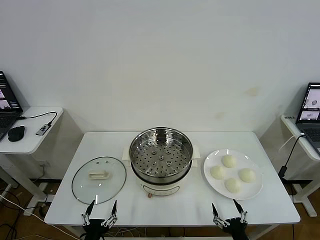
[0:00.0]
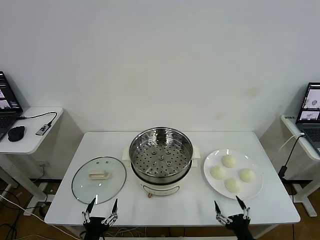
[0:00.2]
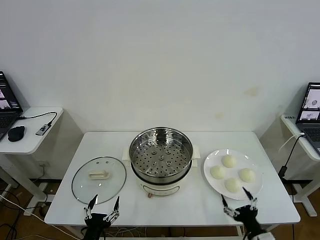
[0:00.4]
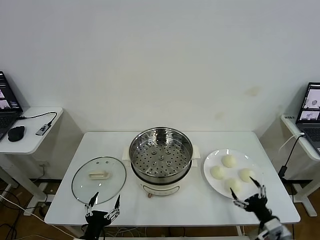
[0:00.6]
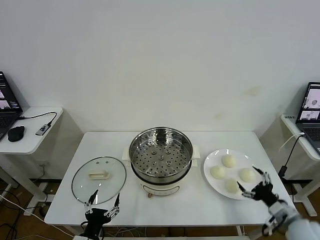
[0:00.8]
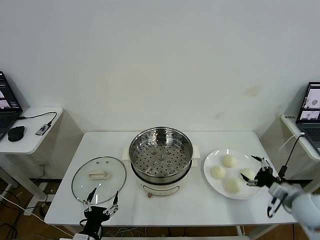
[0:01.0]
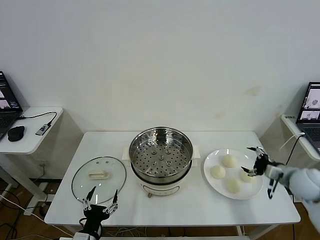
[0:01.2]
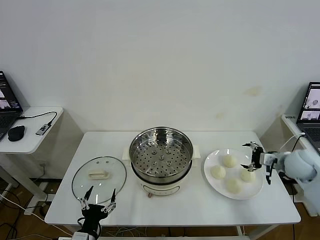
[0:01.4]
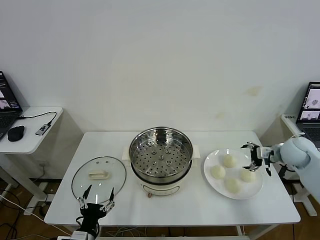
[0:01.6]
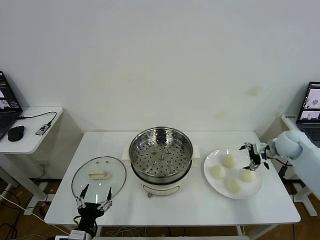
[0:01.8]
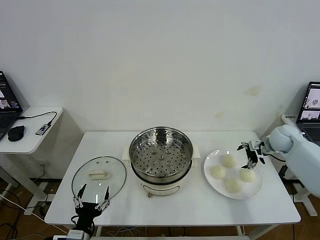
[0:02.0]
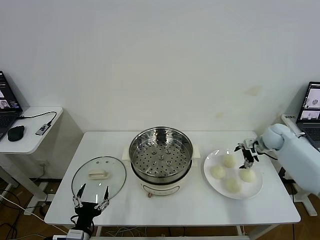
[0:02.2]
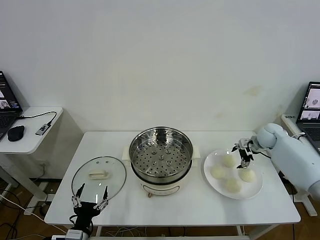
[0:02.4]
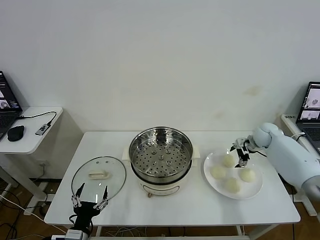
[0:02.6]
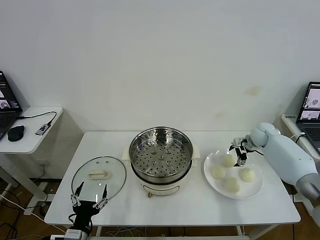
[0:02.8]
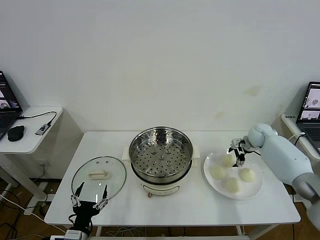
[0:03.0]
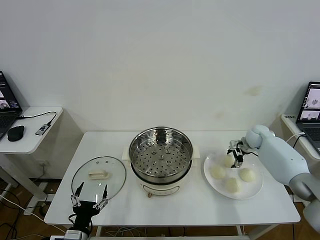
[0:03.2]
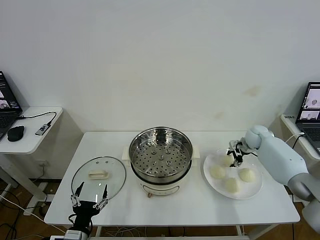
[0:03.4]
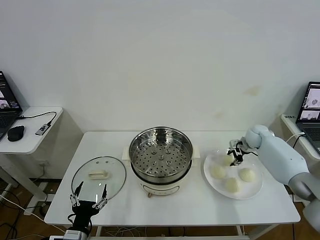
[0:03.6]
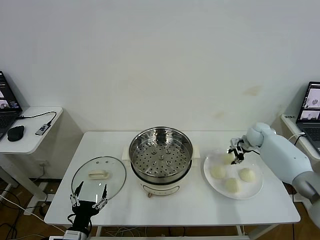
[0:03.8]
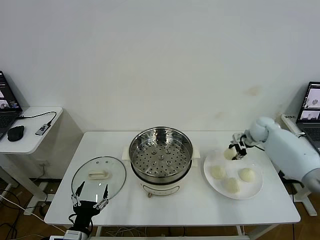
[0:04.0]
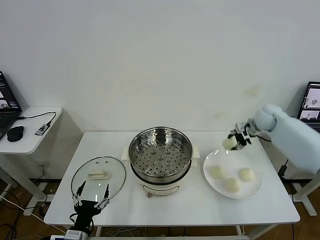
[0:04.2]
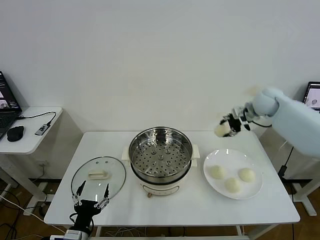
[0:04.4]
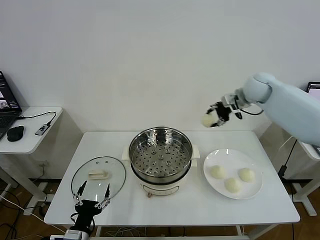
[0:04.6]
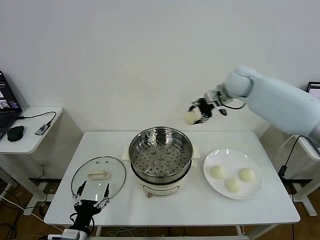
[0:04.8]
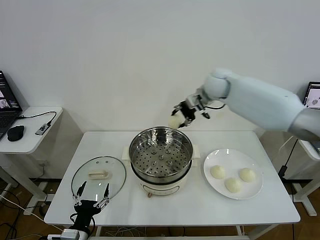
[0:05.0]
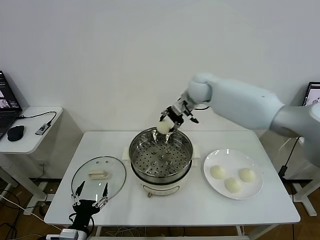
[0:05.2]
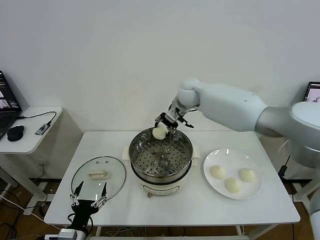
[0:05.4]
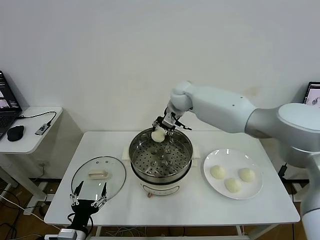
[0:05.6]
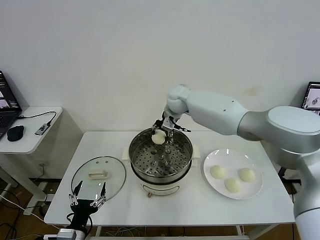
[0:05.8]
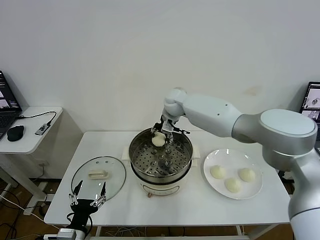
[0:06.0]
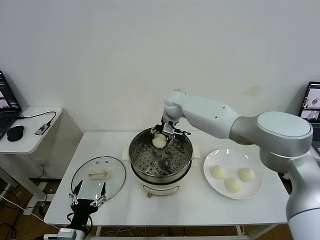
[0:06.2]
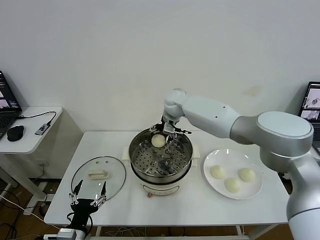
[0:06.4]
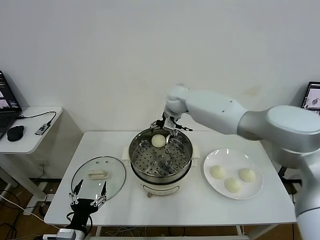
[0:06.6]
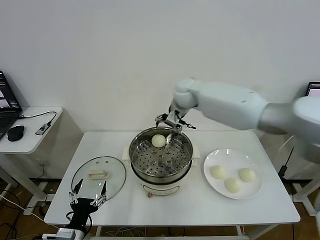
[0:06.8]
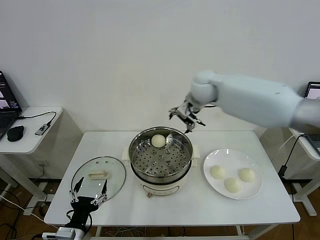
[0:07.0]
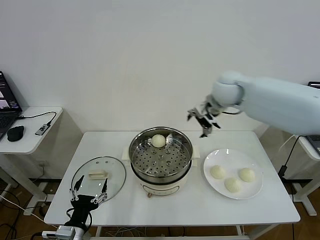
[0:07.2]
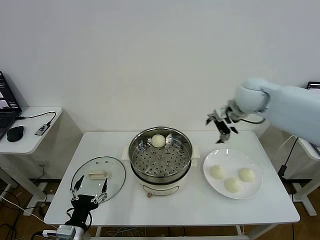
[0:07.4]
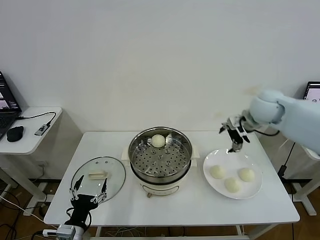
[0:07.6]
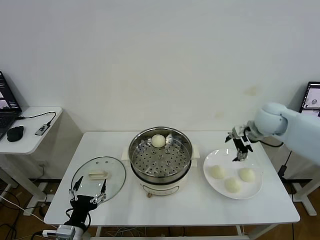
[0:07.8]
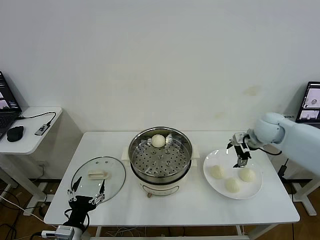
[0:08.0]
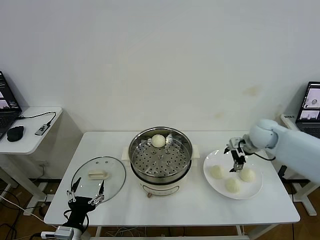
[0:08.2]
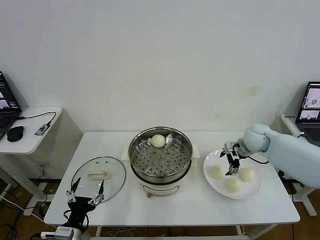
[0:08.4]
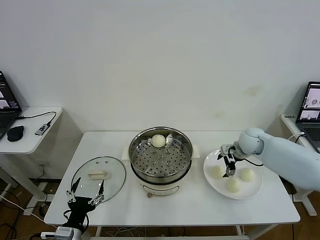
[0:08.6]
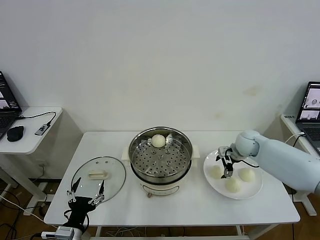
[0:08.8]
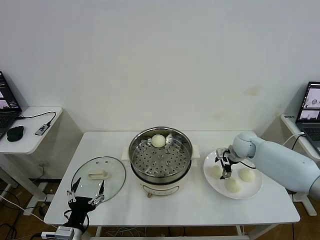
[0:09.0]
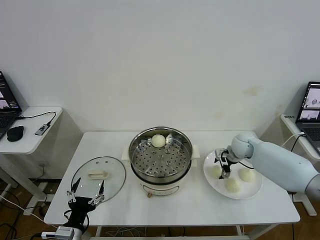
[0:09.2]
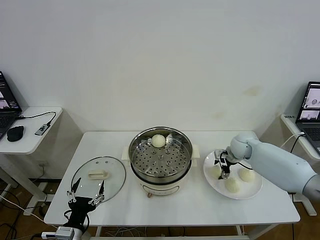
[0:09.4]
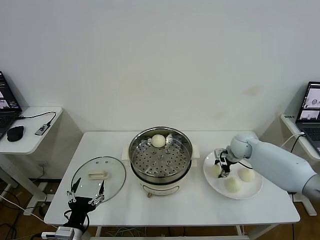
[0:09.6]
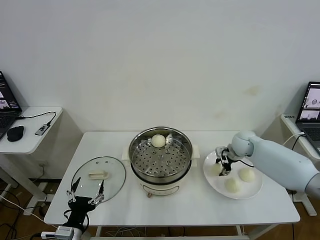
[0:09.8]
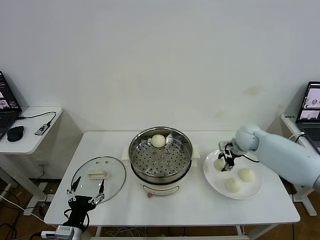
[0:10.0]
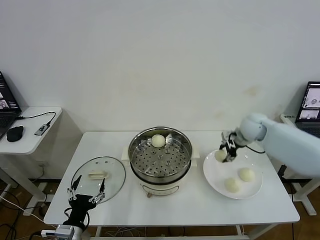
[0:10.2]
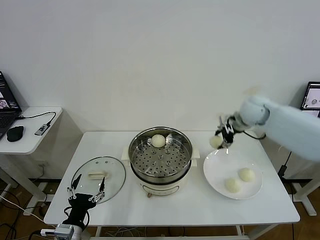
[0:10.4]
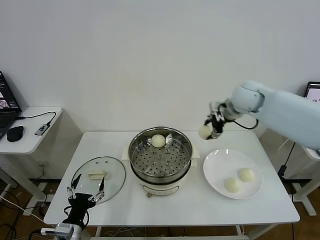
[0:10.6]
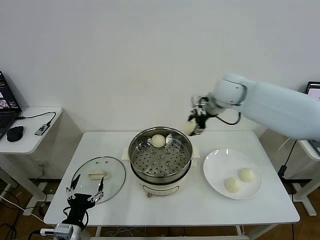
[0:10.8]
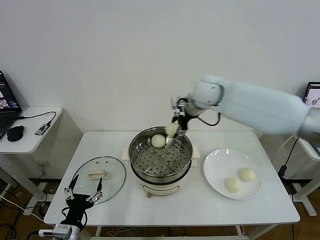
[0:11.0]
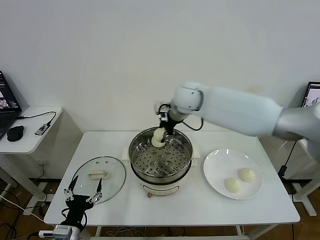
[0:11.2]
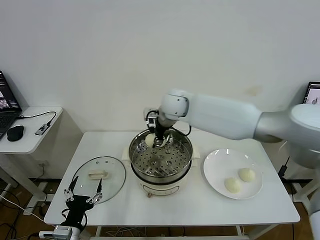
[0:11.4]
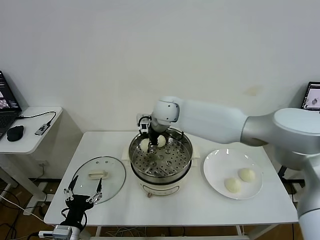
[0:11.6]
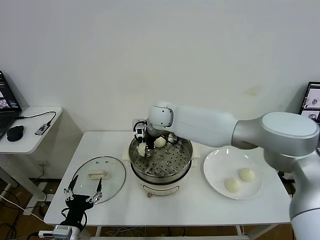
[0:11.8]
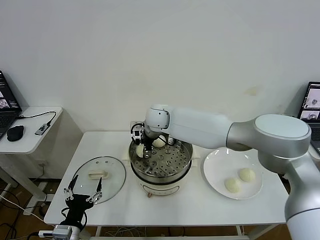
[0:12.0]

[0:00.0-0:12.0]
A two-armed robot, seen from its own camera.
Task of the whole recording: take steamed baozi put them in steamer then cover it.
Step, 0:00.0 to 0:03.2: Grasp the baozi in the plate with right gripper.
Step, 0:03.6 to 0:06.4: Place the baozi on the steamer with right gripper.
Step, 0:06.6 to 0:09.8: Grasp the baozi in the plate with right gripper.
0:01.6 to 0:03.0: The right gripper is displaced forward and downward by roughly 15 cm.
0:03.0 to 0:04.4: The right gripper heads upward, covering approximately 20 cm, and closes up.
0:04.4 to 0:06.0: The right gripper shifts approximately 30 cm to the left.
0:06.0 to 0:07.6: The right gripper travels to the right and backward by some 30 cm, and opens.
0:07.6 to 0:09.0: The right gripper goes some 15 cm downward.
0:09.0 to 0:10.4: The right gripper is displaced upward by roughly 20 cm, and closes up.
0:10.4 to 0:12.0: The right gripper is displaced to the left by about 30 cm.

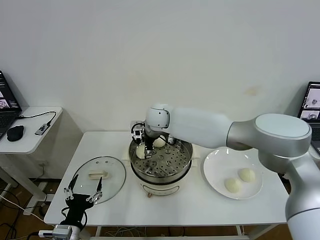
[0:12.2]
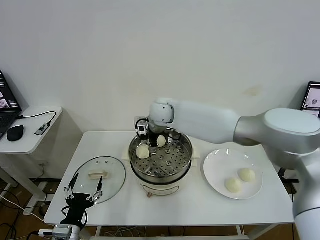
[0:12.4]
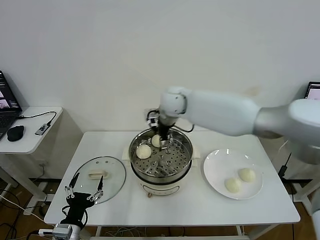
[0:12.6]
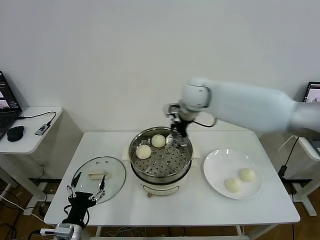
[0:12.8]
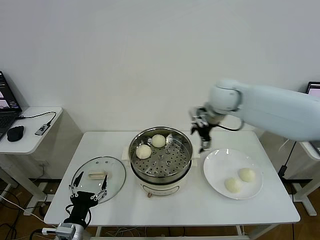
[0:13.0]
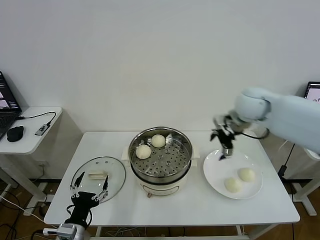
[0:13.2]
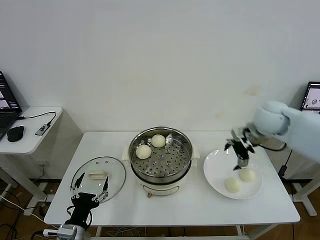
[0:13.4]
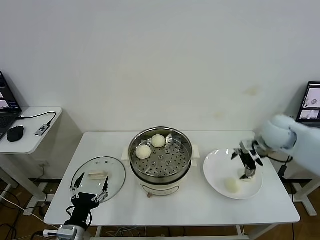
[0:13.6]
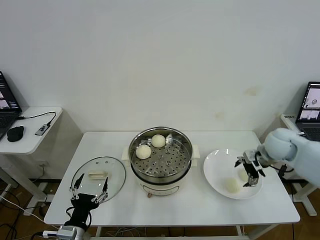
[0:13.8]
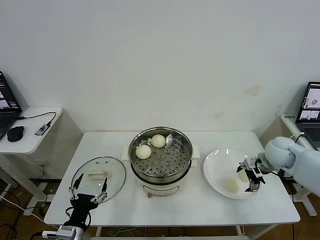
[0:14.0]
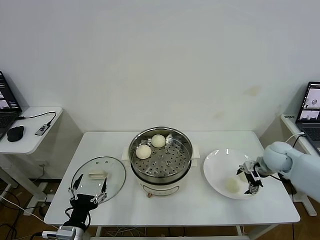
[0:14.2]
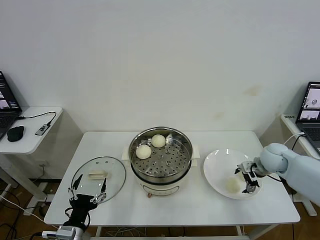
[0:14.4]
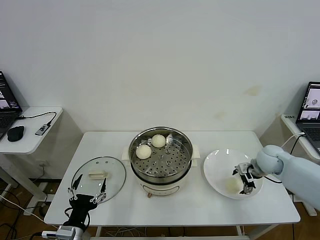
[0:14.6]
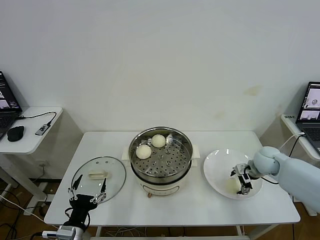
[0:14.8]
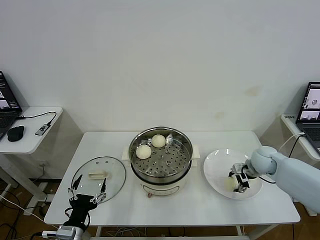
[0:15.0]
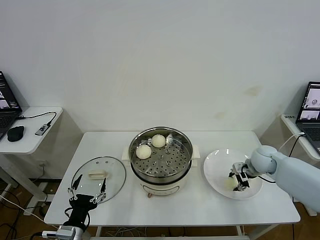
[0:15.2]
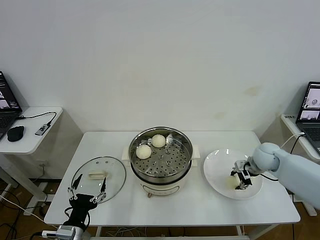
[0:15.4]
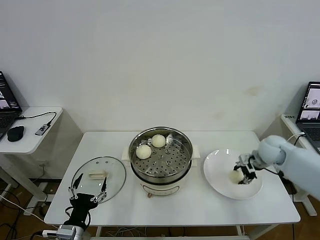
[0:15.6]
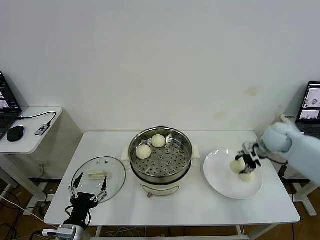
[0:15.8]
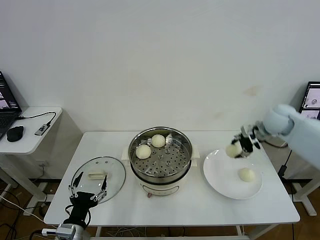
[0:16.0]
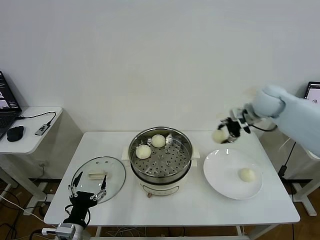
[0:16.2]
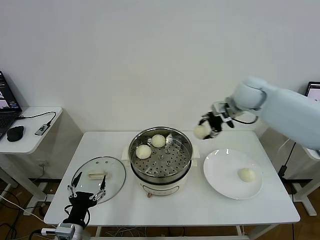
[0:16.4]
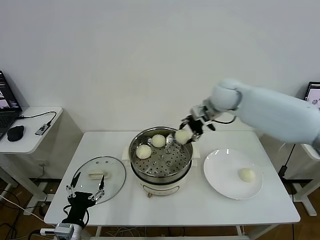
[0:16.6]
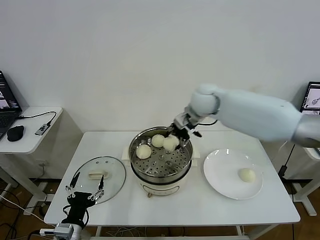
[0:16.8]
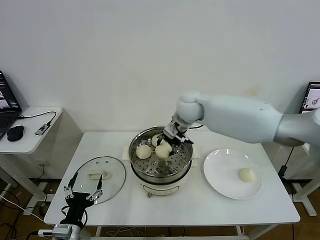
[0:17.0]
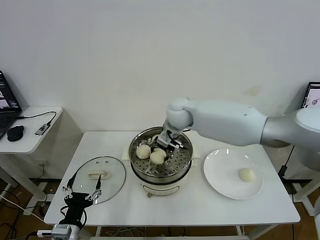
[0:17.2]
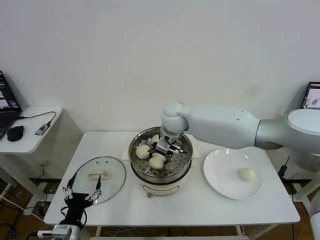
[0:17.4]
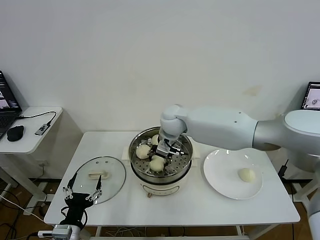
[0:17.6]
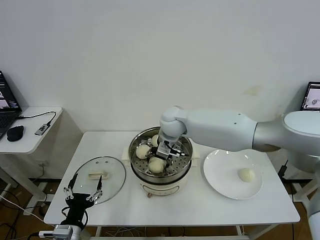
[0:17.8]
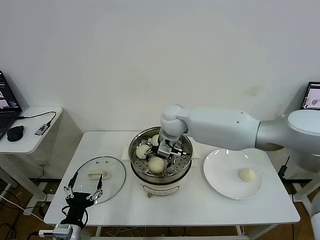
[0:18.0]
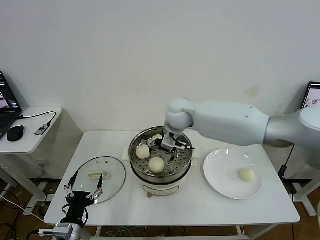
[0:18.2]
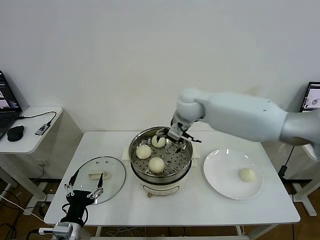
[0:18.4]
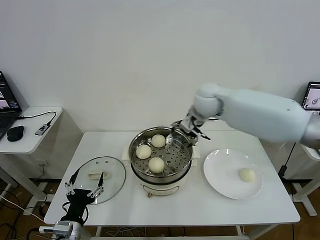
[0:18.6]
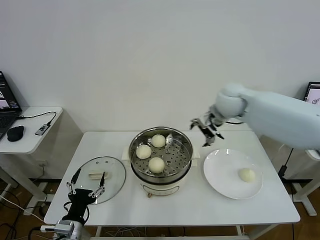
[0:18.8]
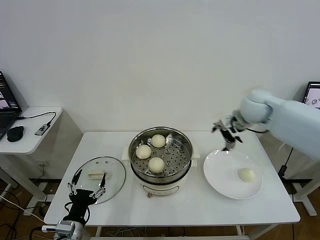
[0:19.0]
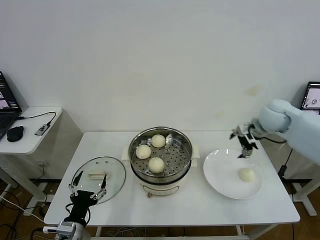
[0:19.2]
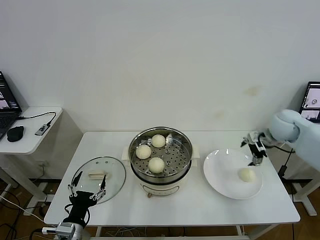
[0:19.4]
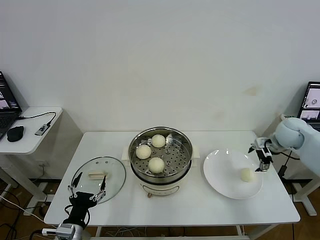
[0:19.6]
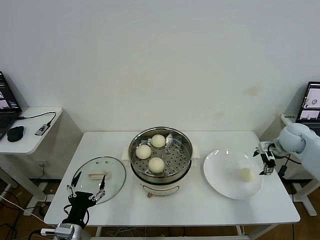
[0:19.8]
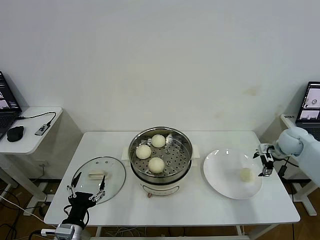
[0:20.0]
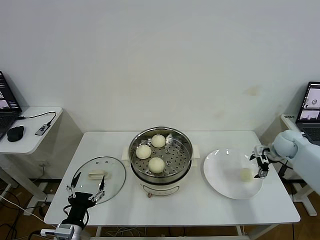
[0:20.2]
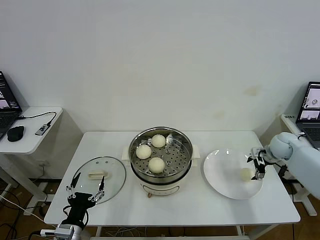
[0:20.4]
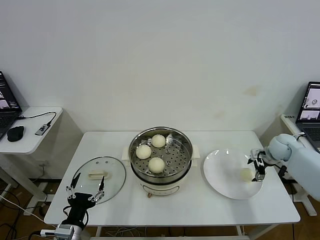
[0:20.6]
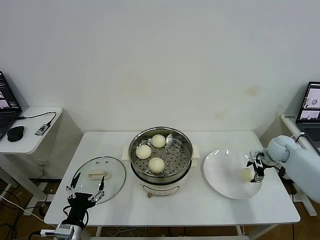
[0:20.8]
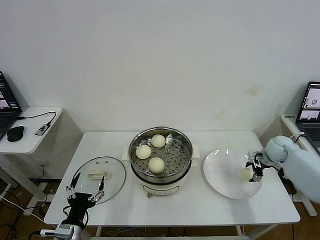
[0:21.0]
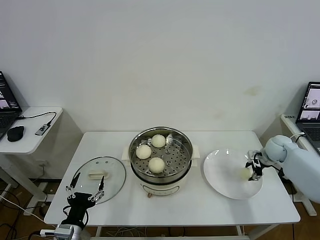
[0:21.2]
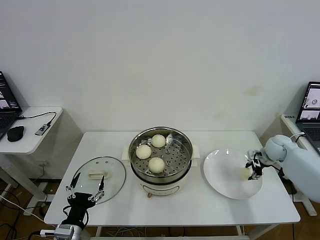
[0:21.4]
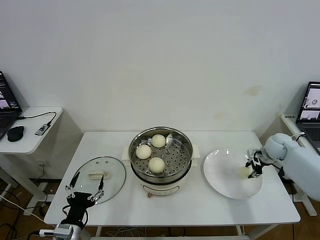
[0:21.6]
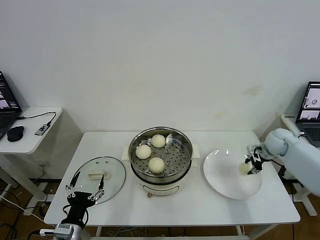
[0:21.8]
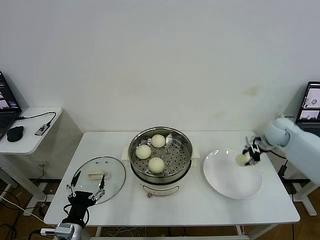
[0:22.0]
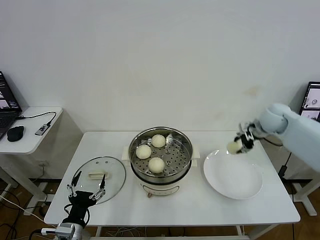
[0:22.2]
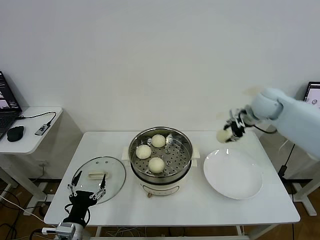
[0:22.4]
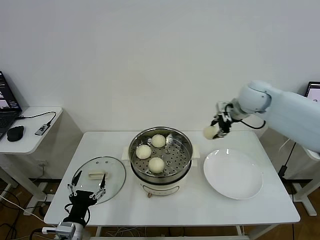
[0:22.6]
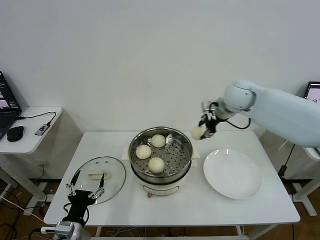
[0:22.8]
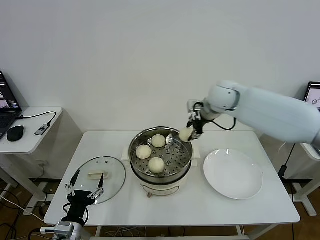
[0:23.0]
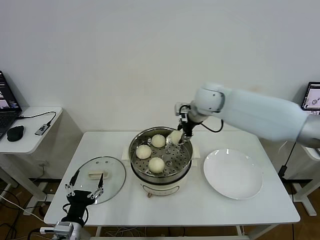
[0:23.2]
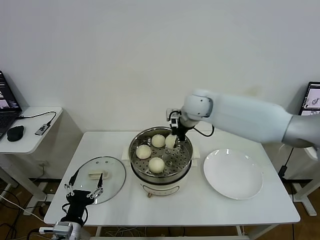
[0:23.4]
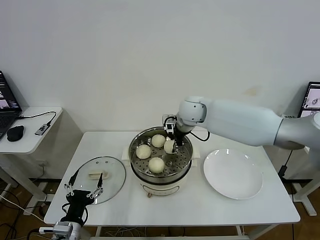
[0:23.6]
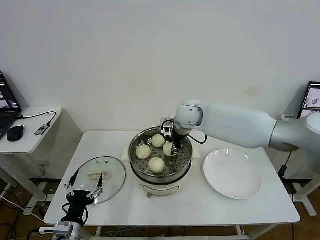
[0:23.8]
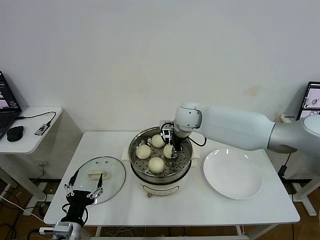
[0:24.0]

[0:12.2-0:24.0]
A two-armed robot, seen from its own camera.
Task of the whole recording: take steamed baozi put them in steamer then cover it.
Step, 0:12.6 to 0:15.0: Grasp the baozi in the plate with right gripper.
Step, 0:15.2 to 0:18.0: Place the baozi on the steamer with right gripper.
Step, 0:18.2 to 0:21.2: Grasp the baozi in the plate with right gripper.
0:12.2 to 0:13.6: The right gripper is displaced to the right by approximately 40 cm.
0:13.6 to 0:15.2: The right gripper moves downward, approximately 10 cm, and closes its fingers.
0:15.2 to 0:16.6: The right gripper heads upward, to the left and forward, covering about 30 cm.
0:16.6 to 0:18.2: The right gripper goes roughly 10 cm to the left, and opens its fingers.
0:18.2 to 0:19.6: The right gripper moves to the right, roughly 40 cm.
0:19.6 to 0:21.0: The right gripper heads downward, covering approximately 10 cm, and closes up.
0:21.0 to 0:22.6: The right gripper heads upward and to the left, covering approximately 30 cm, and closes its fingers.
0:22.6 to 0:24.0: The right gripper moves to the left and downward, roughly 20 cm.
